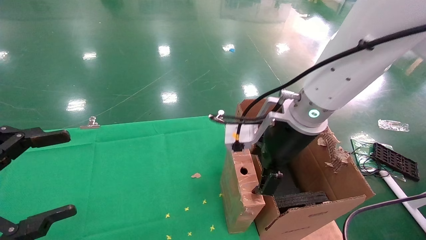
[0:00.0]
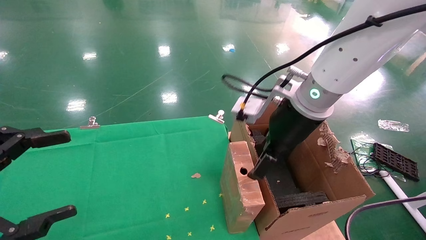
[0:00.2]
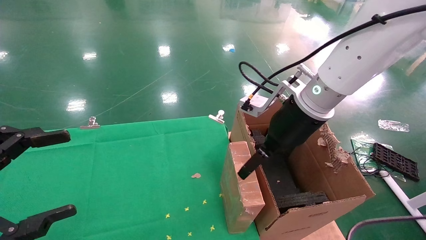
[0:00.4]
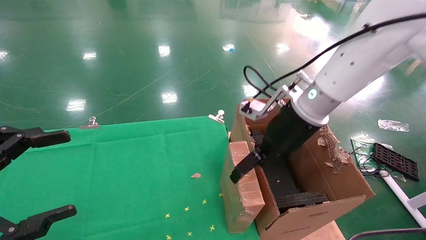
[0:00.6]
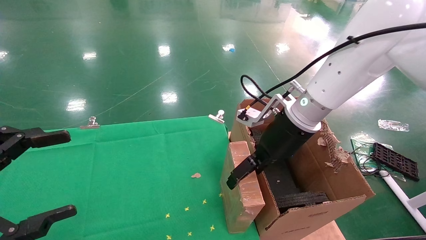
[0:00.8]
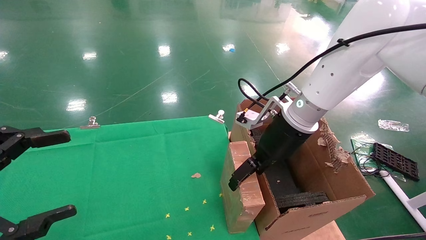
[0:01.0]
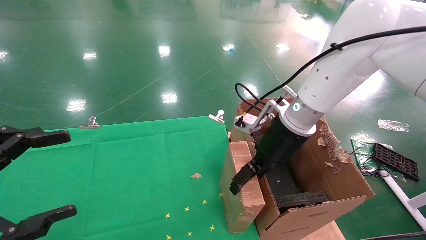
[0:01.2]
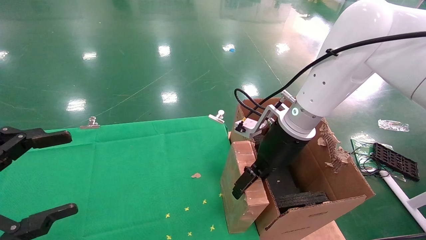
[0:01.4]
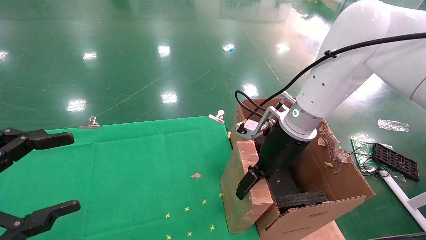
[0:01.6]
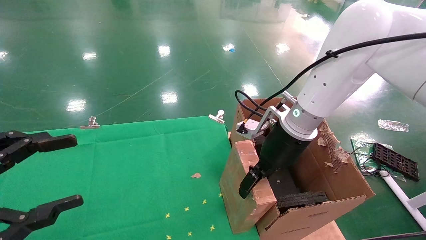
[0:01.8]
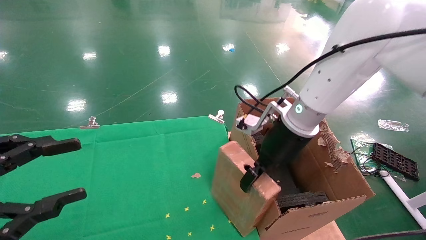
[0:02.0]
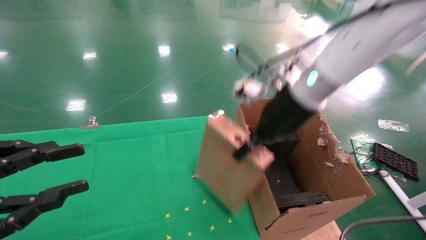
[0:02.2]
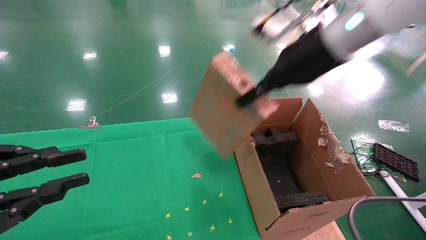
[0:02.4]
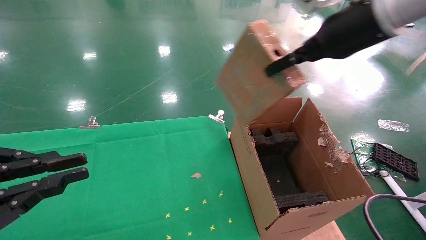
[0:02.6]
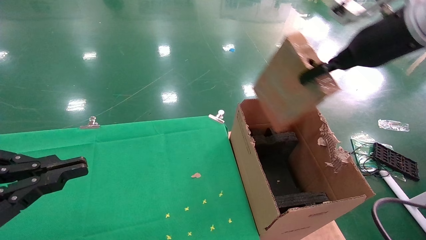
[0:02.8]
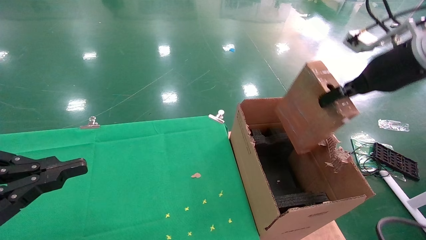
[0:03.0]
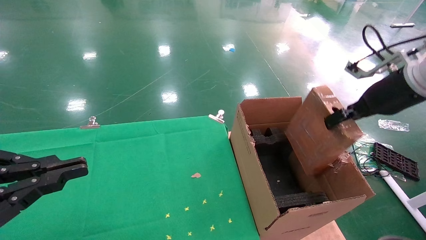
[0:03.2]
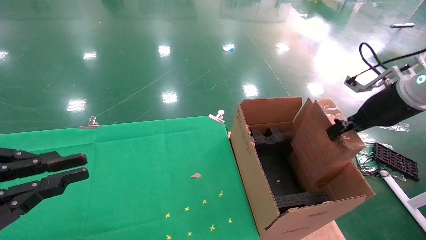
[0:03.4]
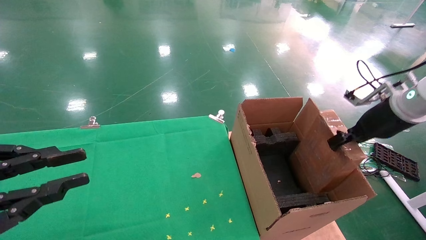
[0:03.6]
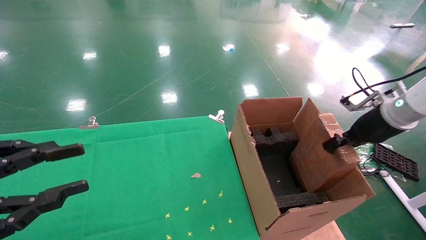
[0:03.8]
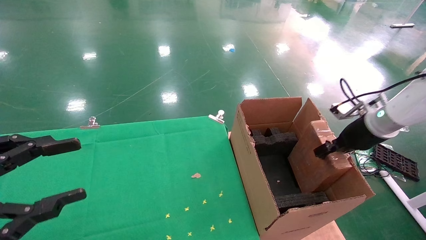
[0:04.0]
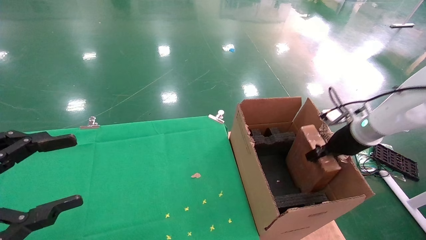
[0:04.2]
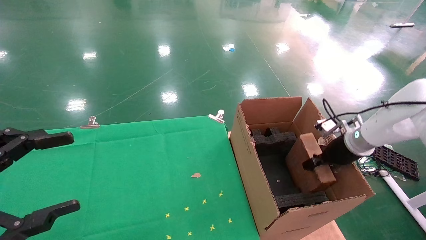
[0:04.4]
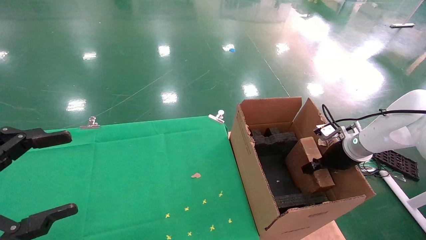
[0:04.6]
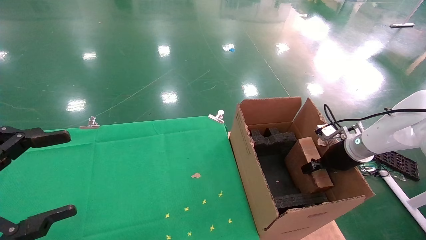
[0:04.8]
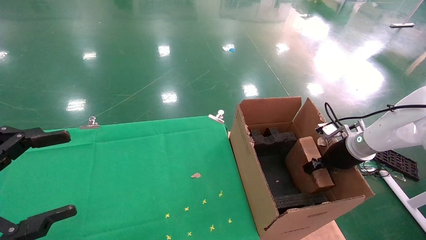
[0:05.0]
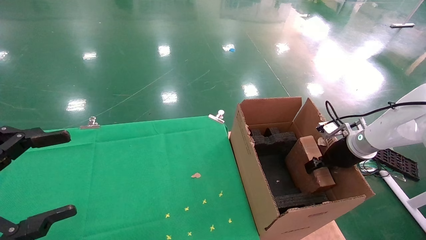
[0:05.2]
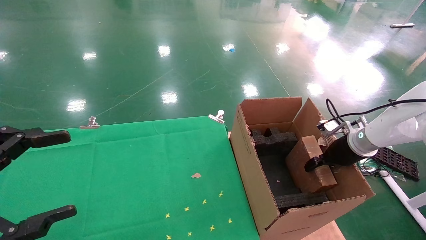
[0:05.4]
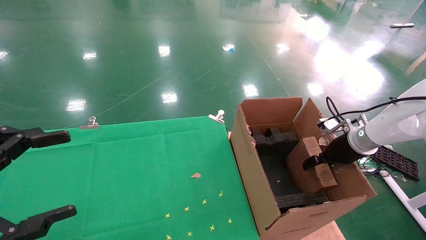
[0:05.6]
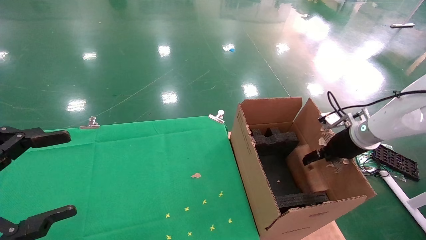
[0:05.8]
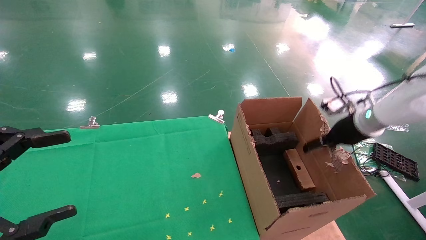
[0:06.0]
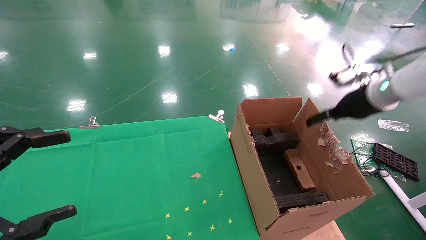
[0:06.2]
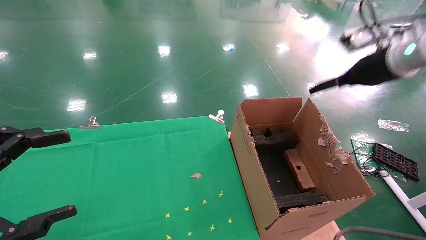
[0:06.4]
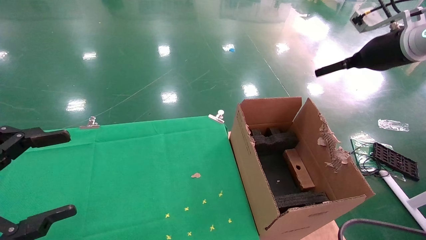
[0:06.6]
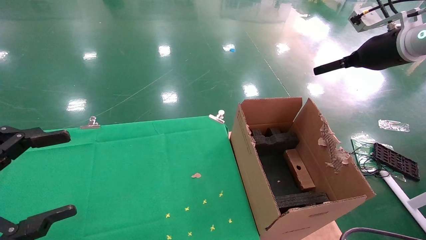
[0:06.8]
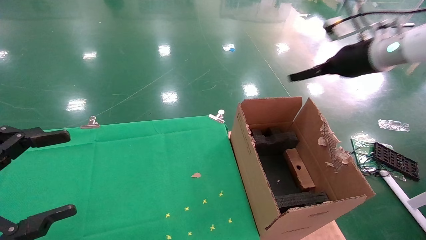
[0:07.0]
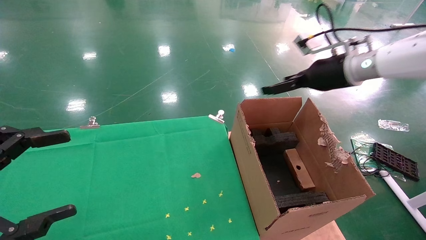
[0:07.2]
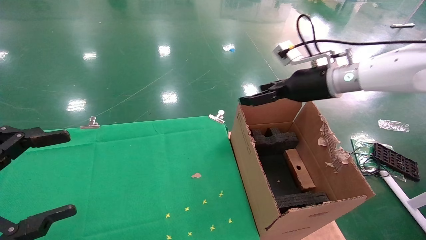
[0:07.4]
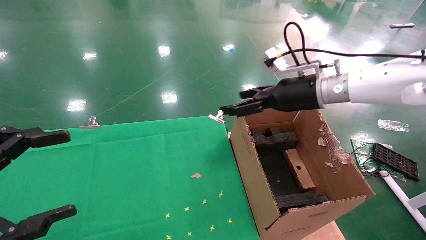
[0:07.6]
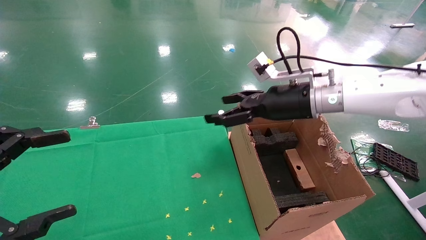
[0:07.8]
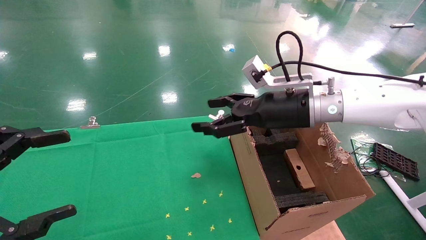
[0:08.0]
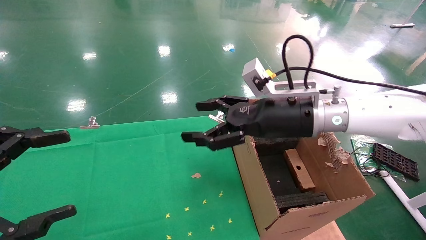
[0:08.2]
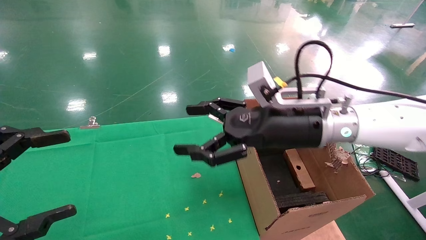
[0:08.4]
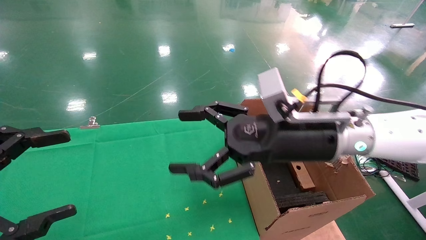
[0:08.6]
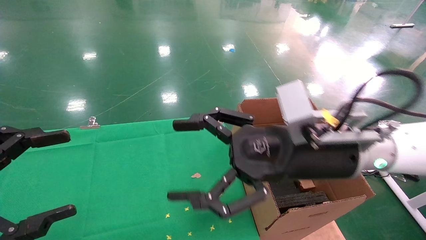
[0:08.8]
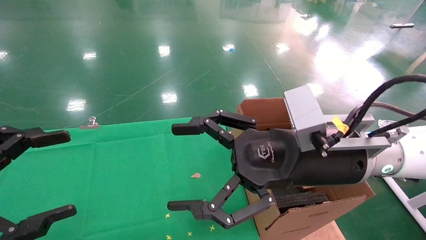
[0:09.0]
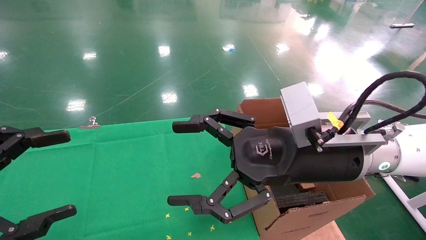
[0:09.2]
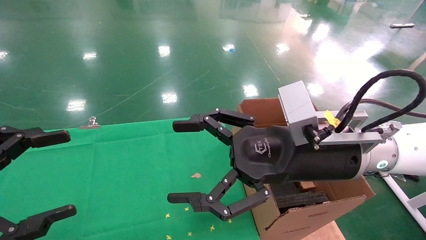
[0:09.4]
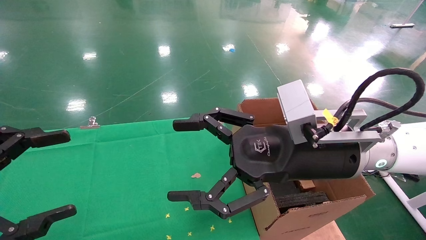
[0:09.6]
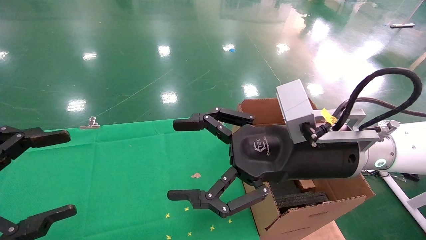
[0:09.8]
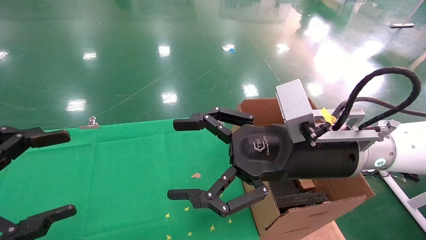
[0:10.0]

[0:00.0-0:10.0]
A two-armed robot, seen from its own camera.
Task of the whole recording: using a robotic arm to pick up a cardboard box and palace it the carton.
Step, 0:00.0 to 0:02.2: Pick up the mouse and the power cord paper box.
Step, 0:02.4 to 0:06.2: Place the mouse and the power cord paper box into the container.
0:00.0 to 0:01.4: The right gripper shifts by approximately 5 cm.
0:01.4 to 0:02.8: The right gripper moves upward and to the right, roughly 20 cm, and closes its fingers, while the left gripper closes its fingers.
0:02.8 to 0:04.2: The right gripper is displaced downward by approximately 20 cm; the left gripper opens.
0:04.2 to 0:05.8: The right gripper opens up. Meanwhile the left gripper opens up.
0:05.8 to 0:07.2: The right gripper goes about 15 cm upward and to the left, and opens up.
0:07.2 to 0:08.6: The right gripper is displaced to the left, backward and downward by approximately 20 cm.
0:08.6 to 0:10.0: The grippers move only a little.

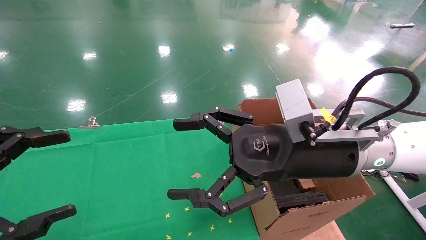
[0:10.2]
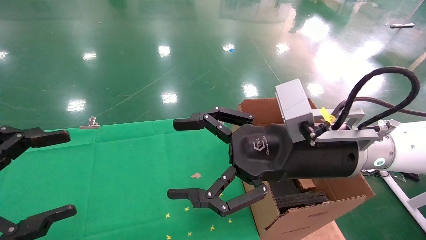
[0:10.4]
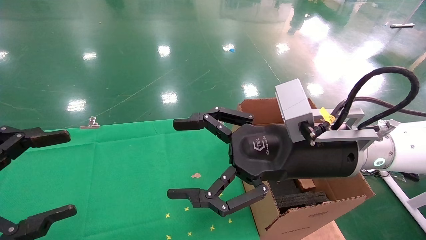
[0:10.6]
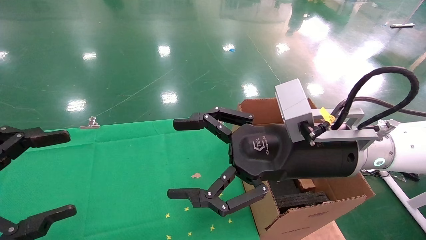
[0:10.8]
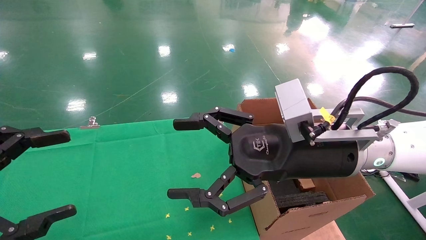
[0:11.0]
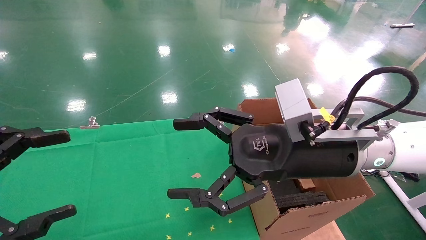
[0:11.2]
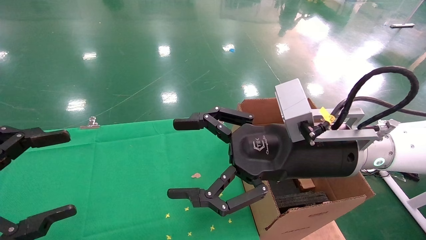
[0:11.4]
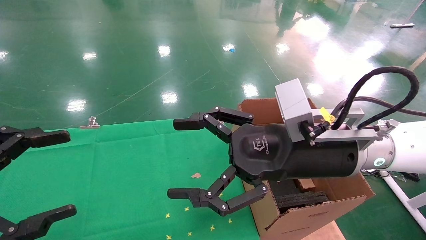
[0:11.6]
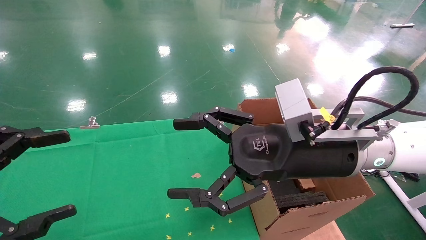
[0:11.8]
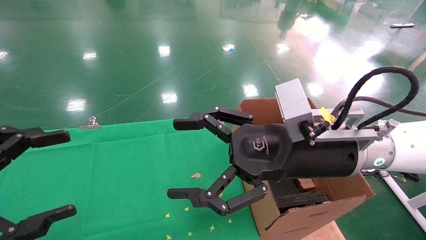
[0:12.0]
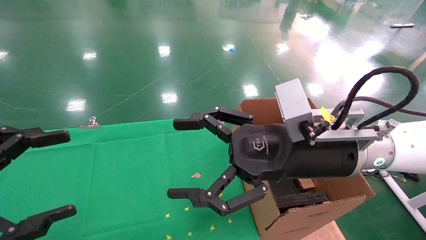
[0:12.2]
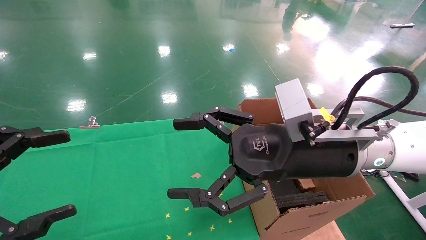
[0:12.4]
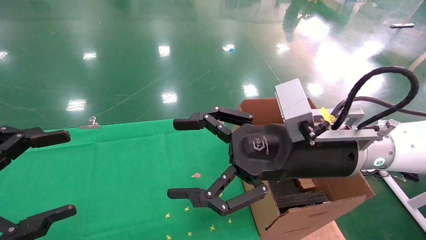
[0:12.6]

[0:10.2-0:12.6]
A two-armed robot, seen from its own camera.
Task of the whole recording: using a robotic arm to pick up a cardboard box and palace it the carton.
0:10.2 to 0:12.6: Both grippers stay about where they are.
